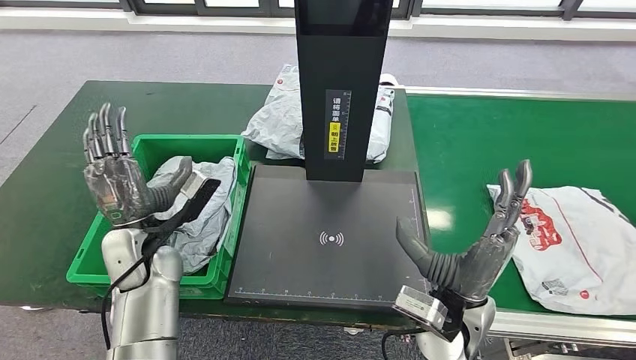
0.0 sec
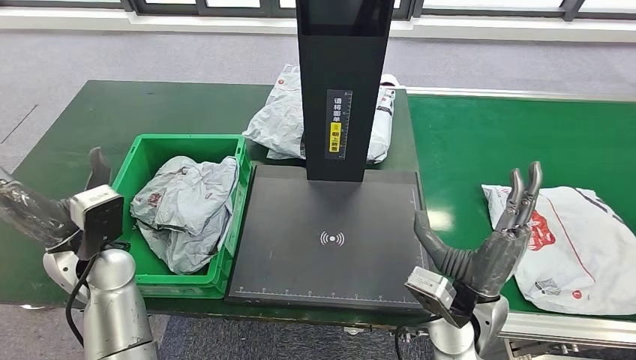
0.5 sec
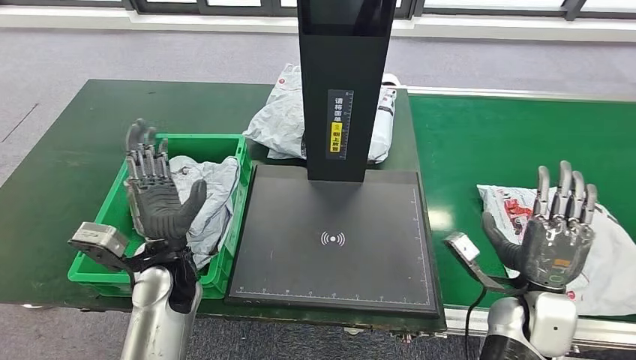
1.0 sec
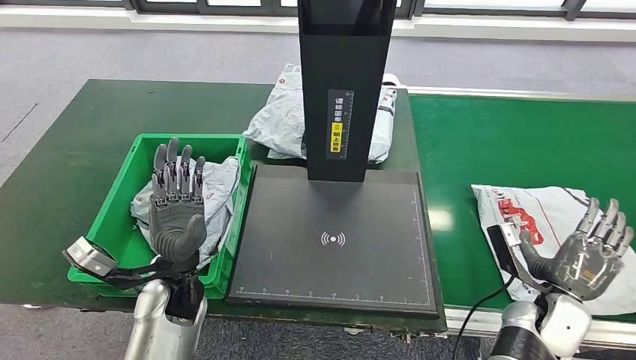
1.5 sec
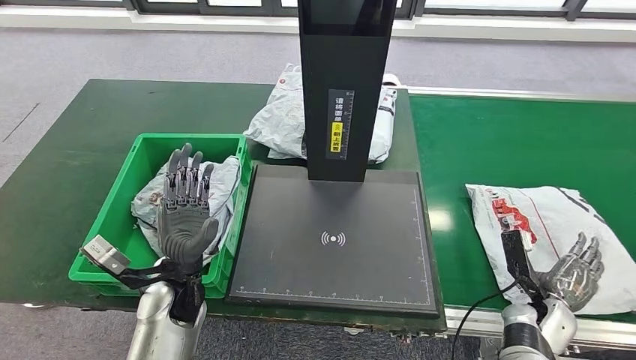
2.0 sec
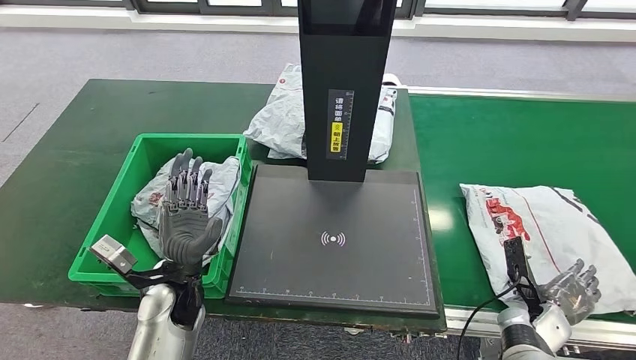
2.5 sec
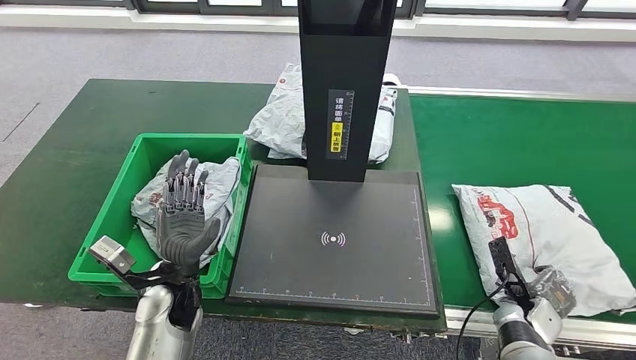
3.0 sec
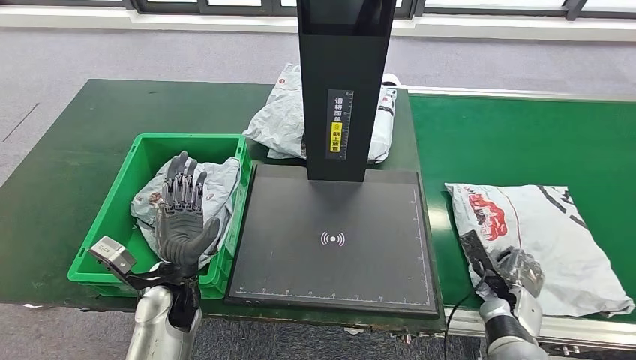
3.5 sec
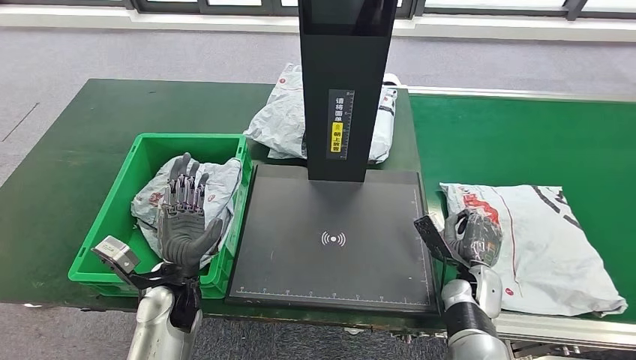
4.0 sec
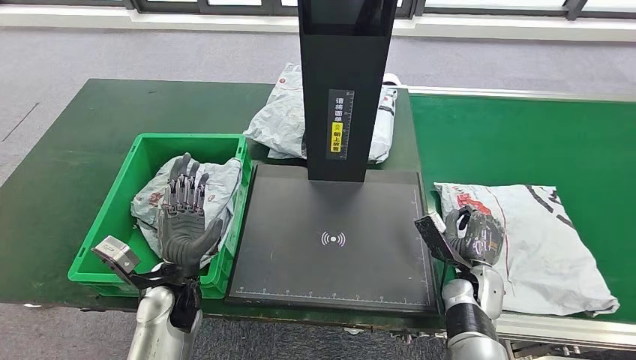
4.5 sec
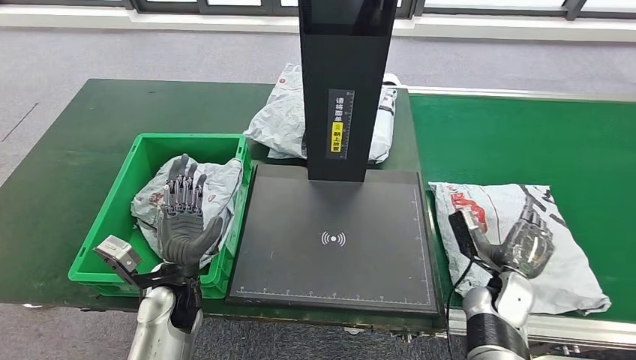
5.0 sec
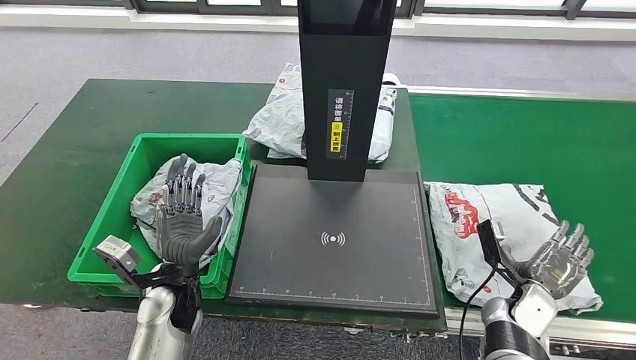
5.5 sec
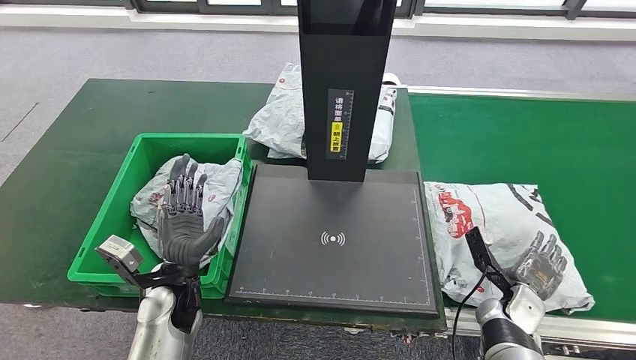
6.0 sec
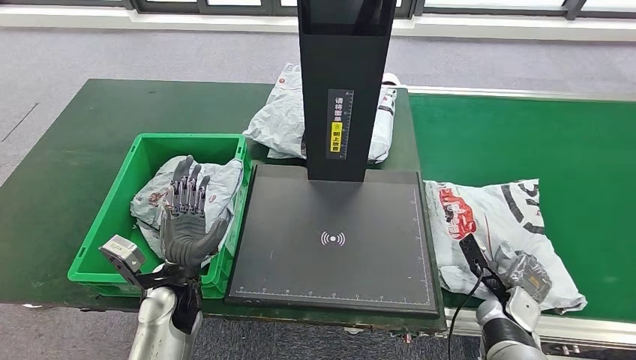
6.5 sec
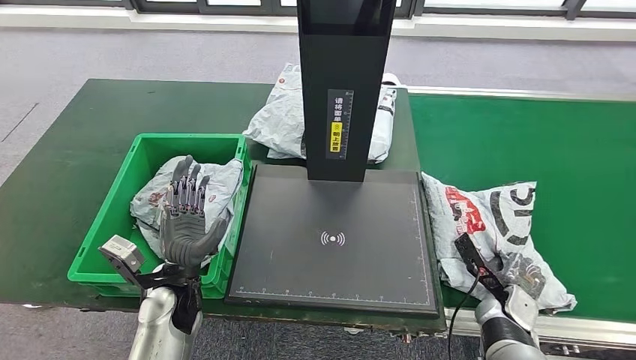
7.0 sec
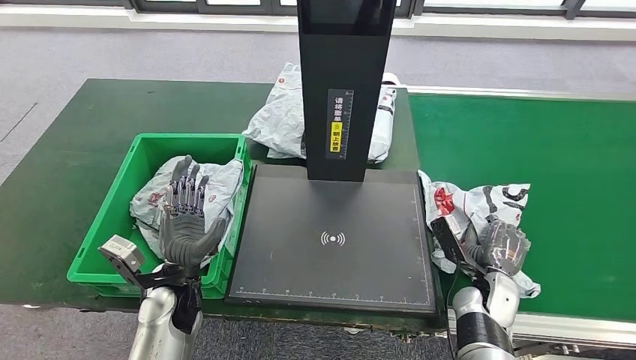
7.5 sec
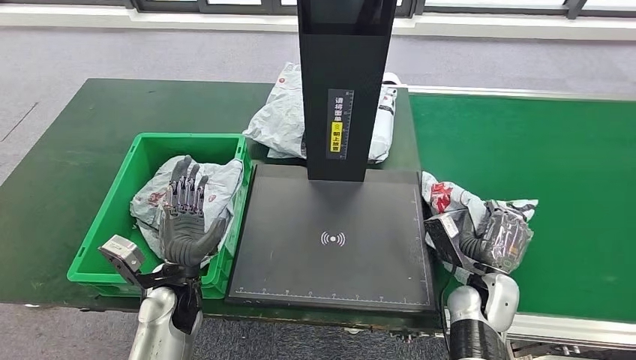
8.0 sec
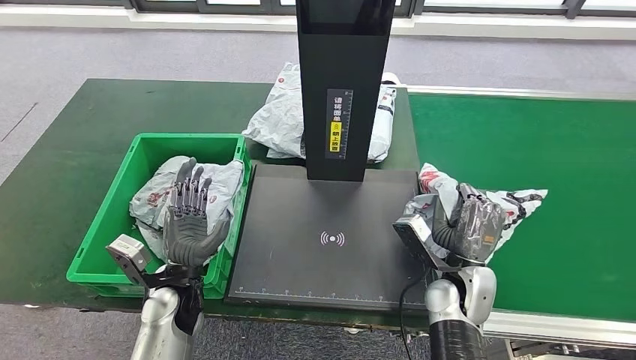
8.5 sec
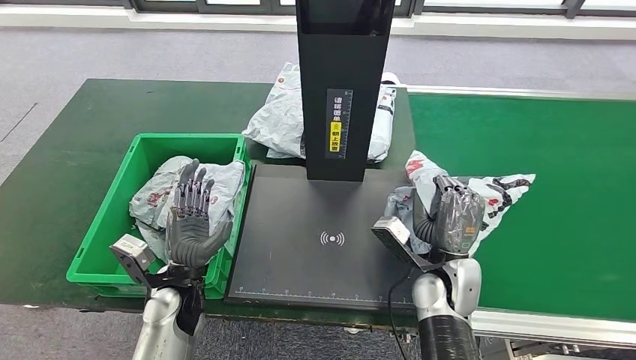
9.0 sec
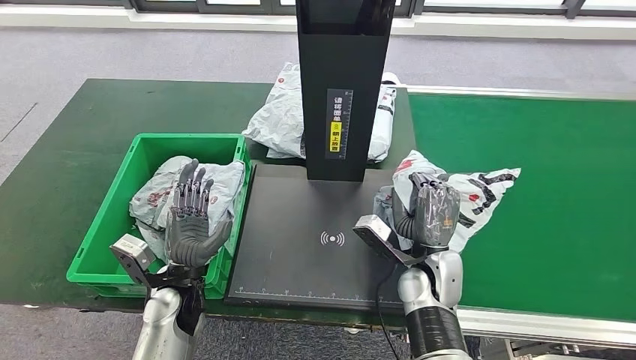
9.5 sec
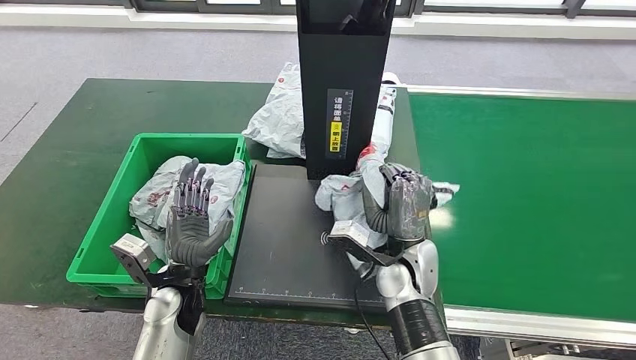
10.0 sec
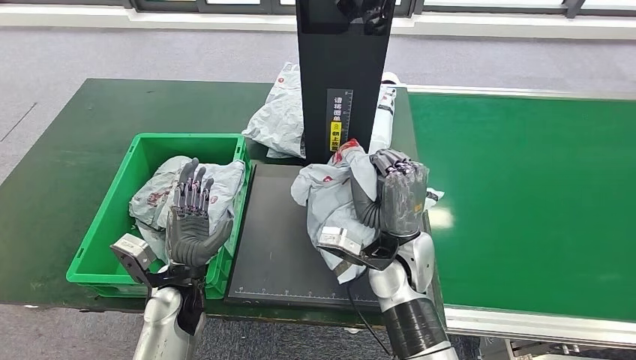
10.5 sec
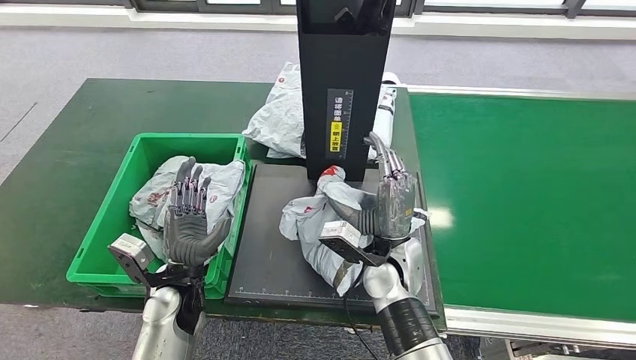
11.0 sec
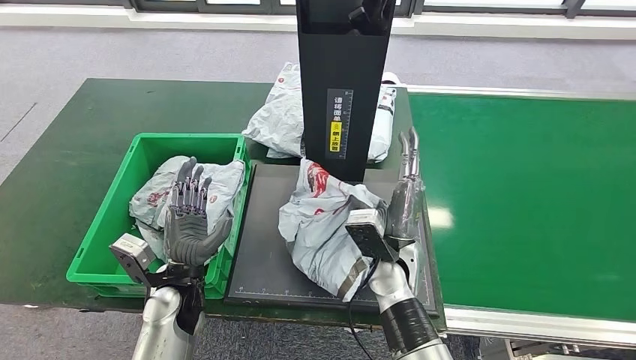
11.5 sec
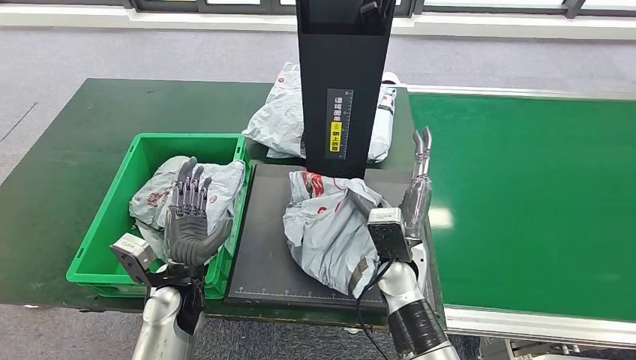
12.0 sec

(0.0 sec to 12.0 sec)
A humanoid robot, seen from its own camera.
Step, 7.5 sec - 8.0 sec: Pick up the parcel from the conveyor belt.
2.0 sec - 4.0 sec: The right hand goes approximately 10 cm to the left.
4.0 sec - 6.0 sec: The right hand goes roughly 10 cm to the right.
6.0 sec - 8.0 sec: The right hand is displaced to the left and upward by about 10 cm.
8.0 sec - 10.0 sec: The right hand shifts approximately 15 cm to the left and upward.

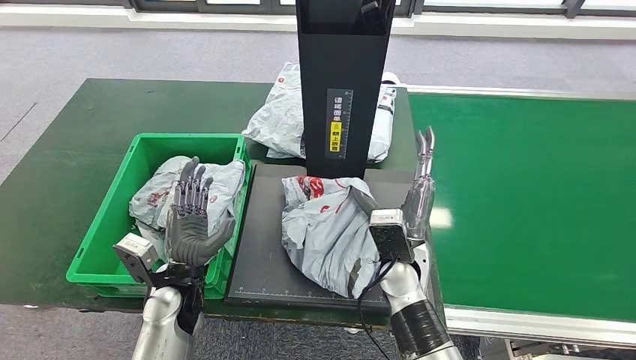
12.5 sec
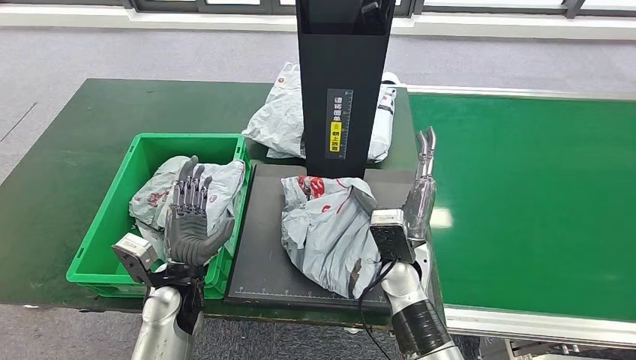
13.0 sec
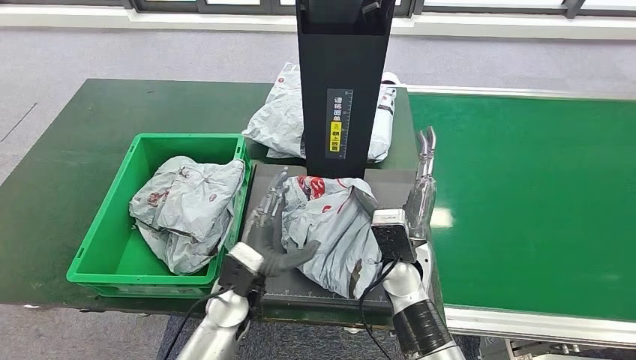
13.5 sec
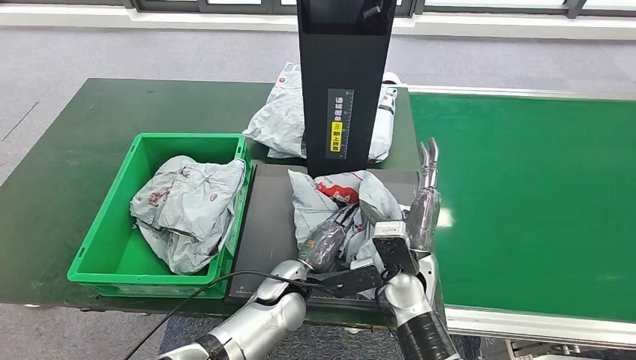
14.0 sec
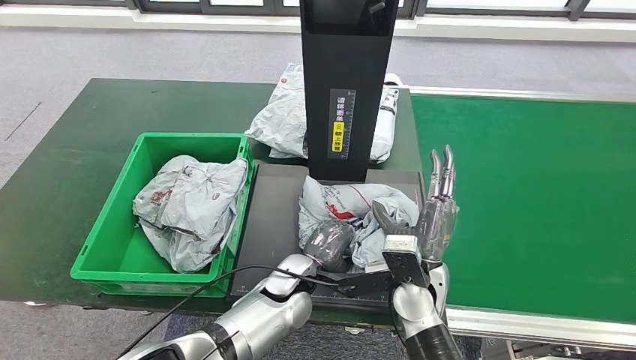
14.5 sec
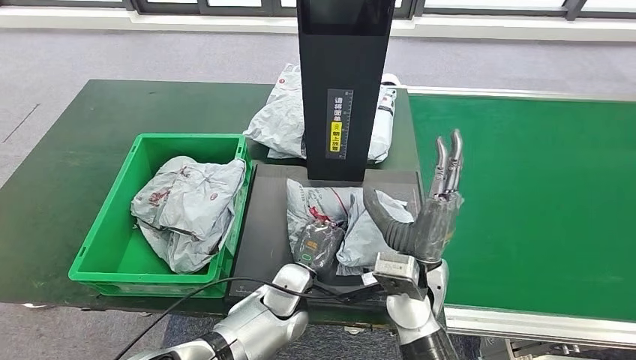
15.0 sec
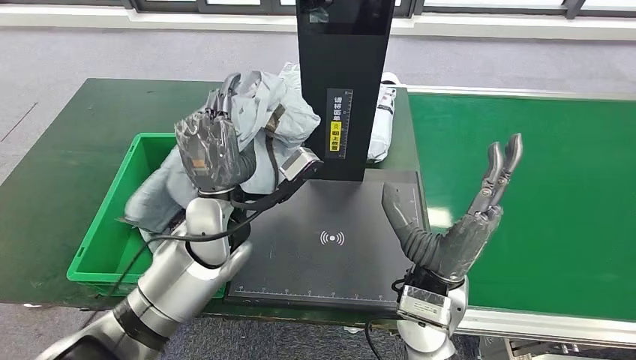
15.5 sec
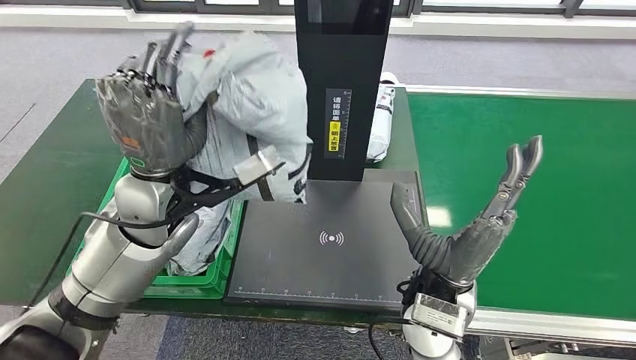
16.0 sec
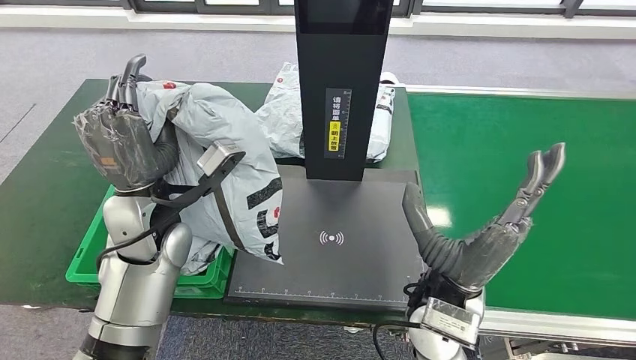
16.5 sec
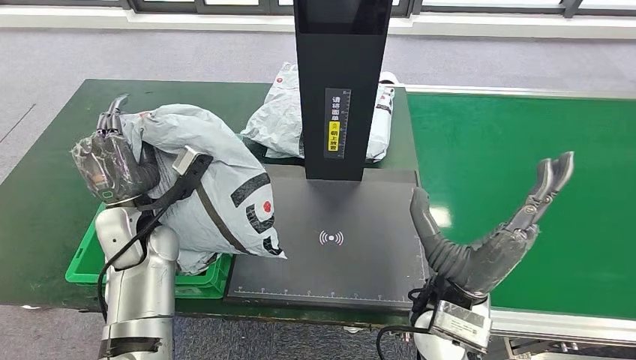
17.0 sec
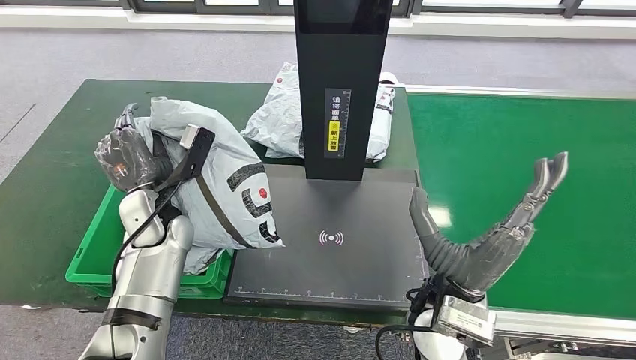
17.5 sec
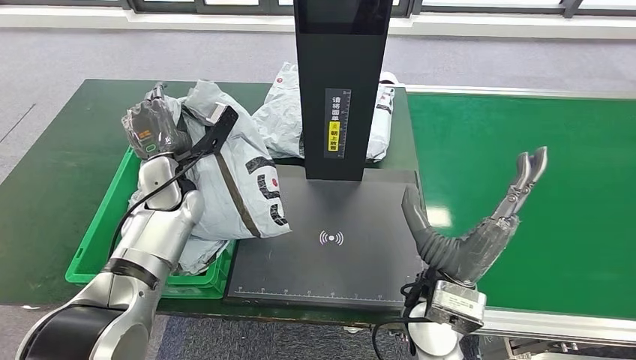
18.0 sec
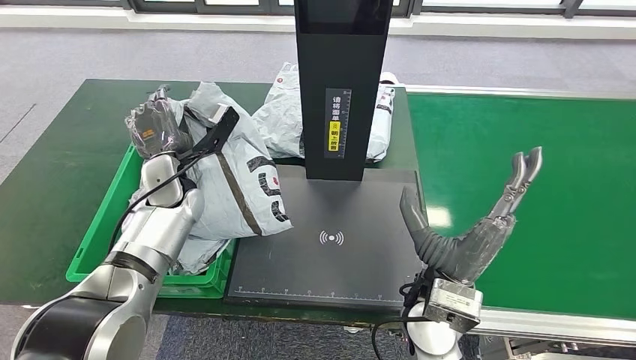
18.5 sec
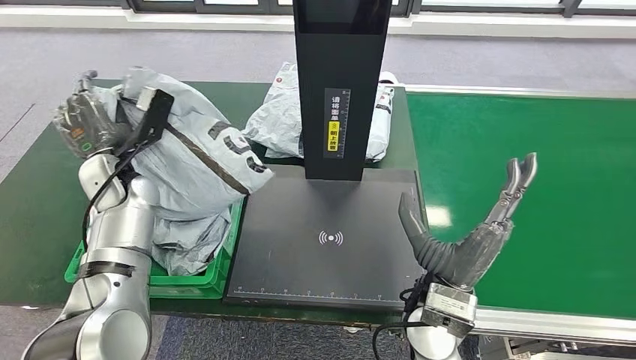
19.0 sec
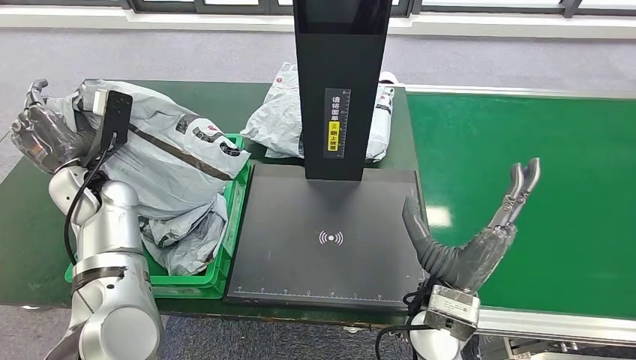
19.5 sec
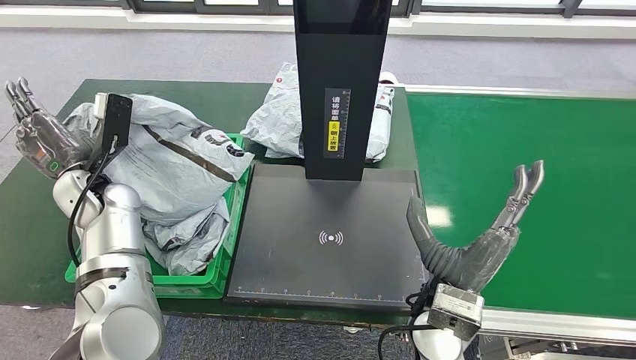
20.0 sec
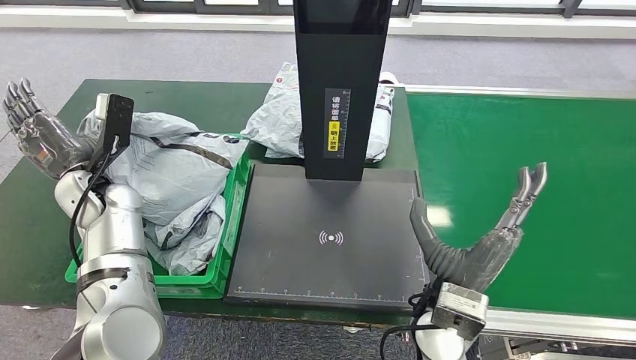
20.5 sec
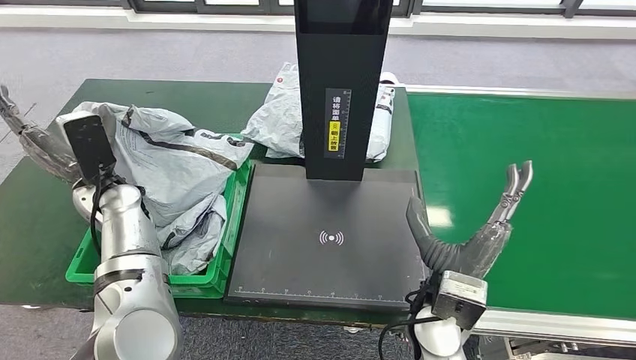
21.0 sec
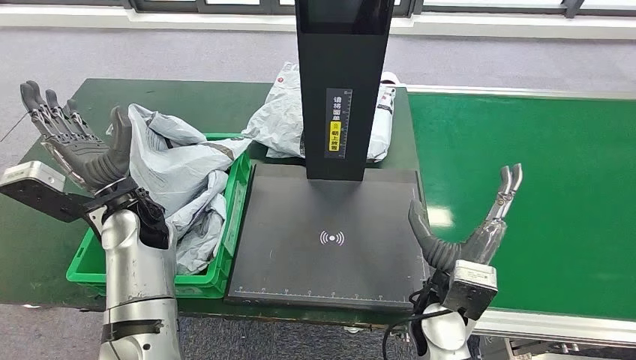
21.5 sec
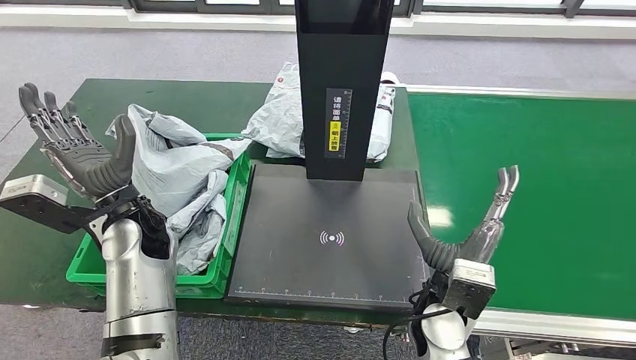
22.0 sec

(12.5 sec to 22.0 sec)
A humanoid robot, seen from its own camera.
Step, 15.0 sec - 15.5 sec: Pick up the parcel from the inbound machine.
Step, 21.0 sec - 21.5 sec: Place the parcel into the delivery box.
16.5 sec - 18.0 sec: The left hand is displaced forward and downward by about 10 cm.
